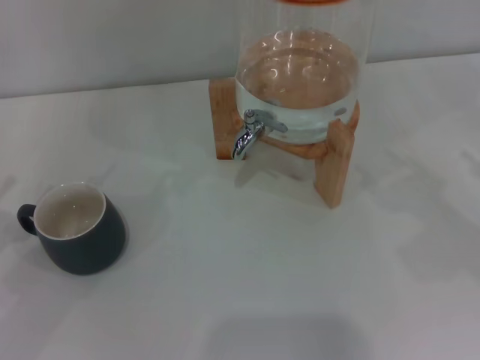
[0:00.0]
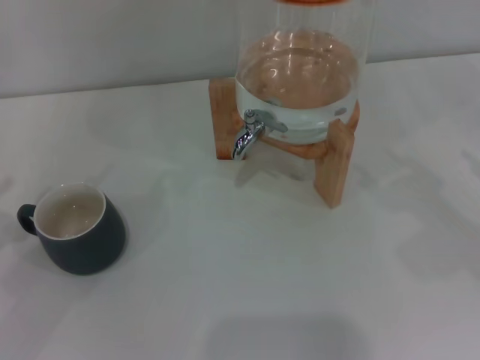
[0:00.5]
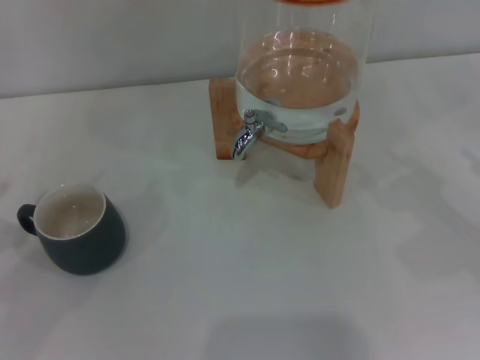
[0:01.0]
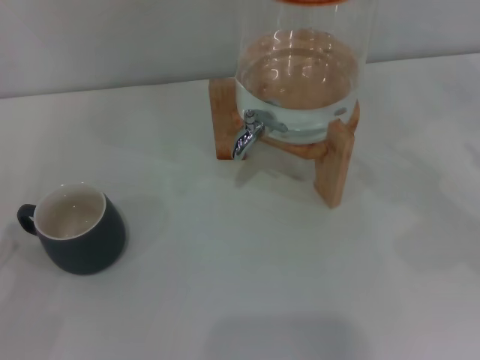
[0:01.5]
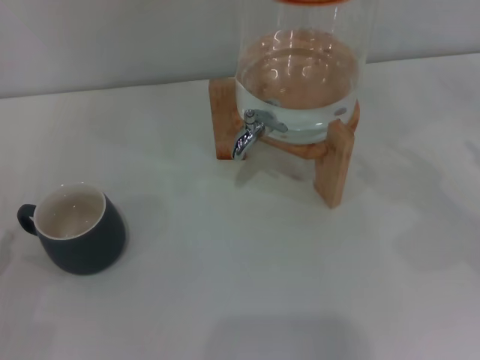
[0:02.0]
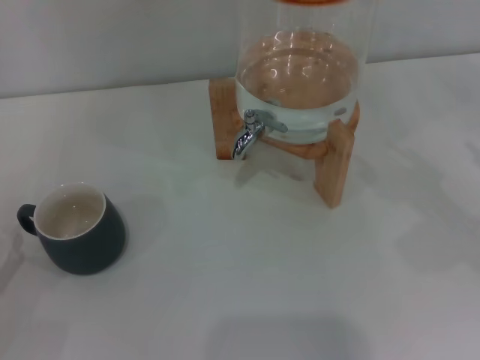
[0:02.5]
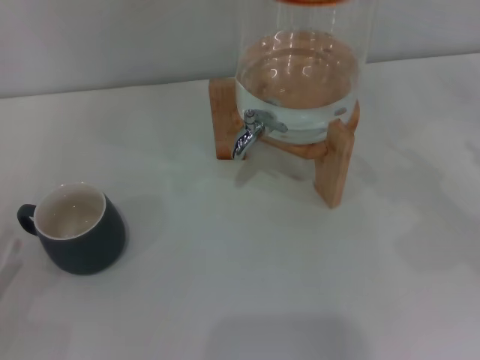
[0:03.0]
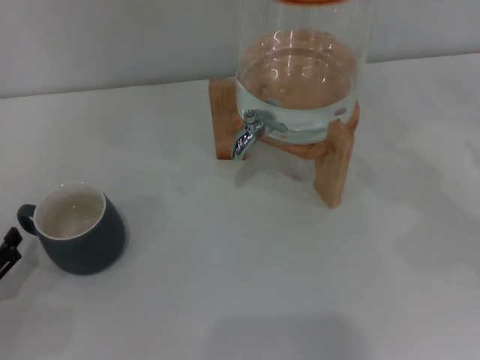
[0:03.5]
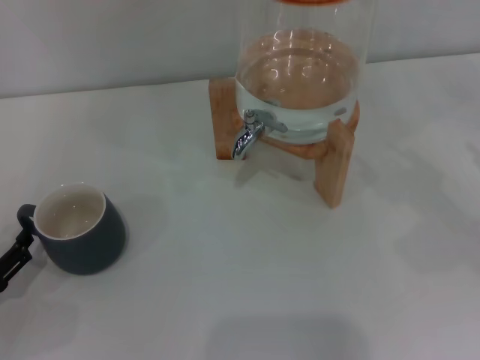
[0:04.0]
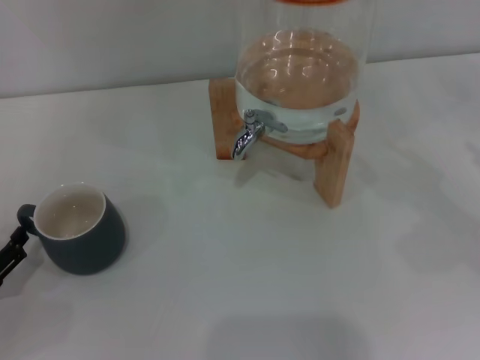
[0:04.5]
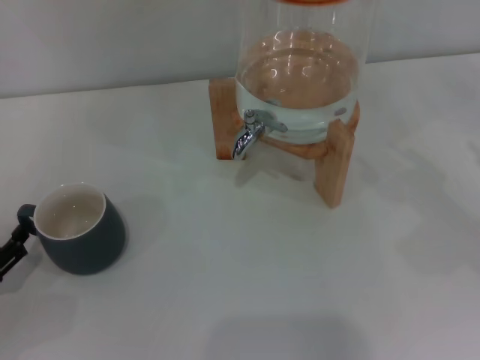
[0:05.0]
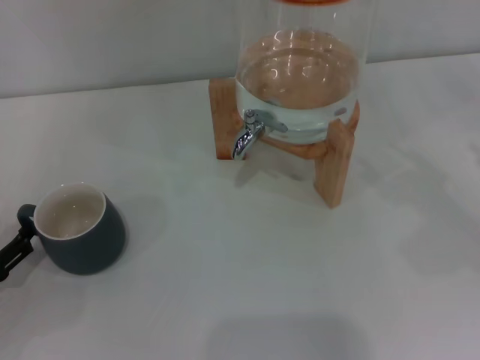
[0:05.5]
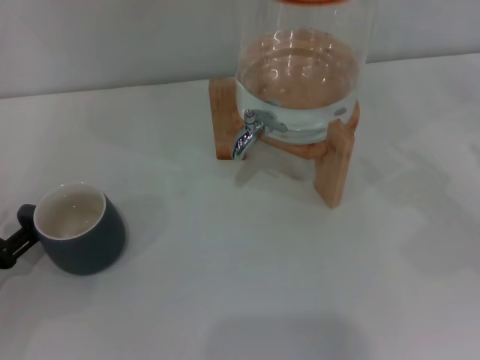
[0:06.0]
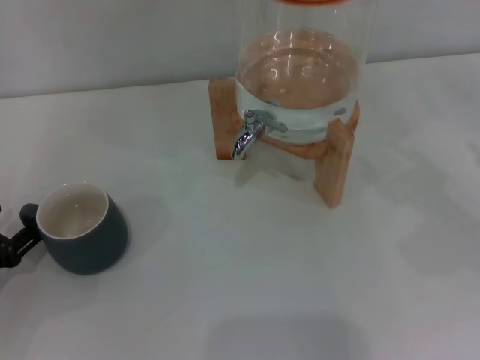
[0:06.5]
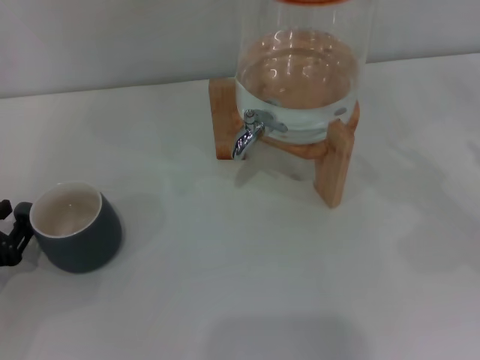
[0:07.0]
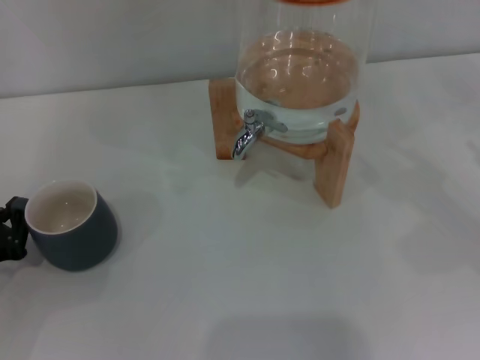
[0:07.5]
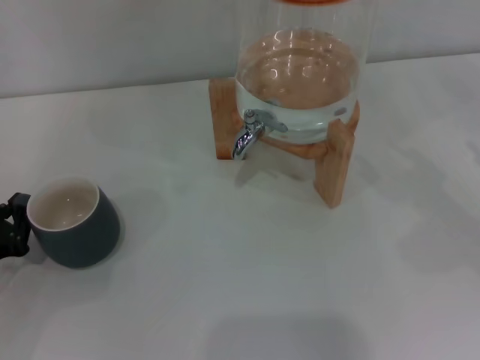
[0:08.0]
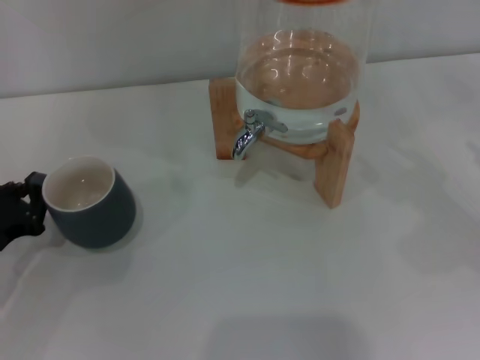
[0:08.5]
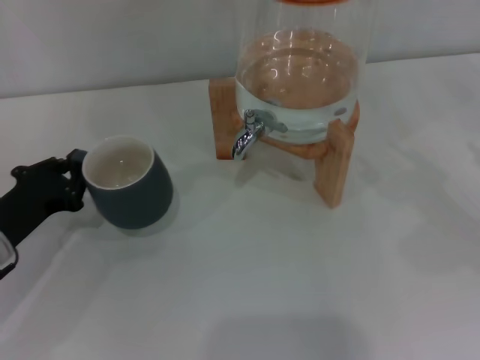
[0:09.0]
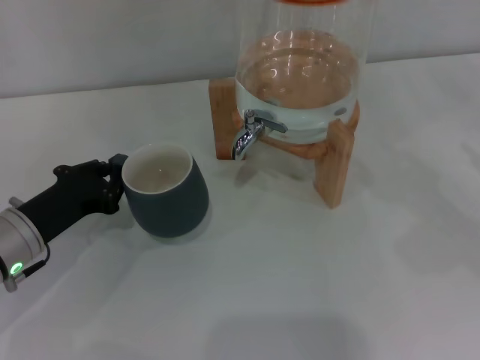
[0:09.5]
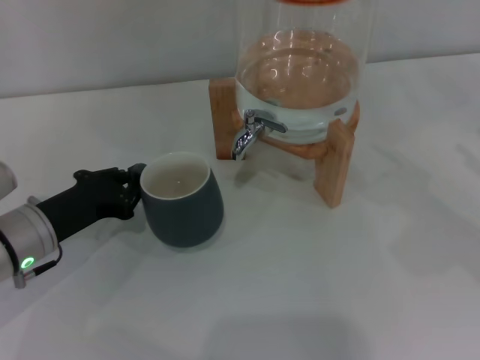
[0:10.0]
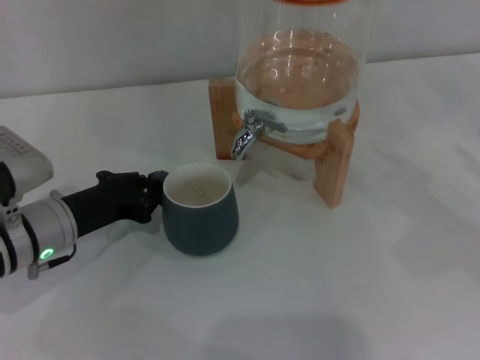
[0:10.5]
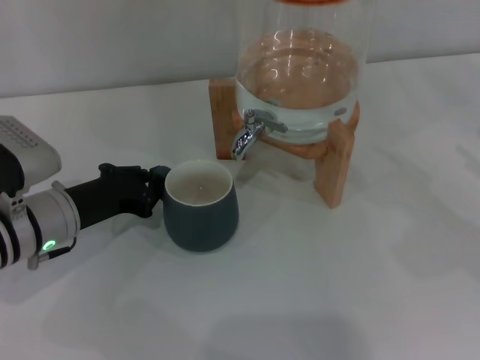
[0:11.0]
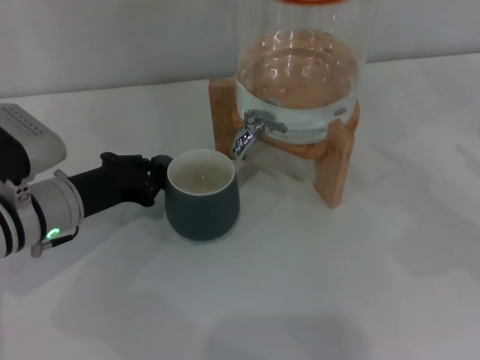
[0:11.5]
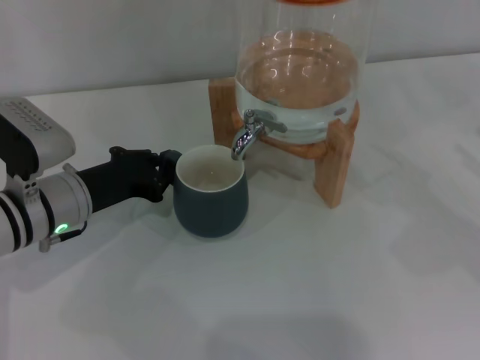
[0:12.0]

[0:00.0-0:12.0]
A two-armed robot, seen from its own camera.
Task of the whole recording: the left gripper pick up the black cup and place it horizontally under the faucet, the right gripper turn on the faucet to fill the cup, and then turn off the faucet.
0:02.0 to 0:04.0: The grippers move only a little.
0:06.0 to 0:08.0: The left gripper closes up.
0:08.0 to 0:10.0: The left gripper heads to the right and forward, covering approximately 10 cm.
0:10.0 to 0:12.0: The left gripper shifts by roughly 5 cm.

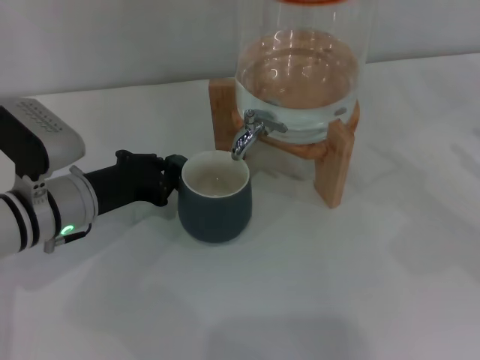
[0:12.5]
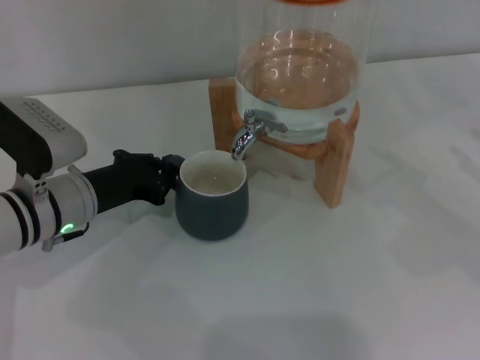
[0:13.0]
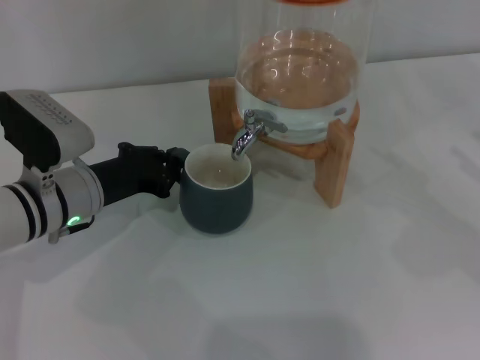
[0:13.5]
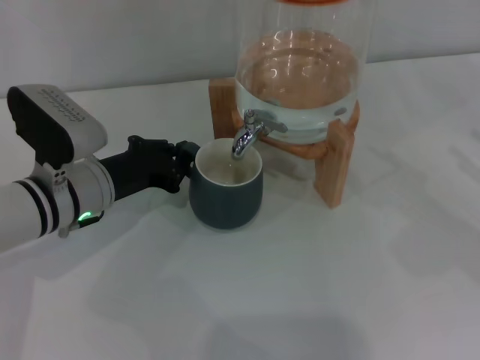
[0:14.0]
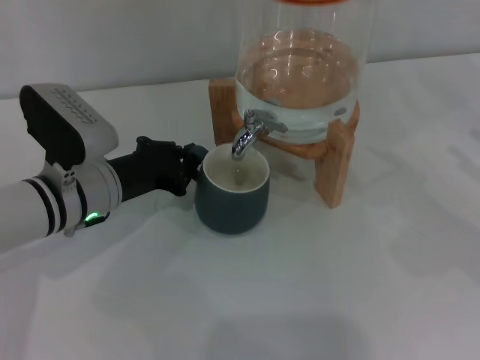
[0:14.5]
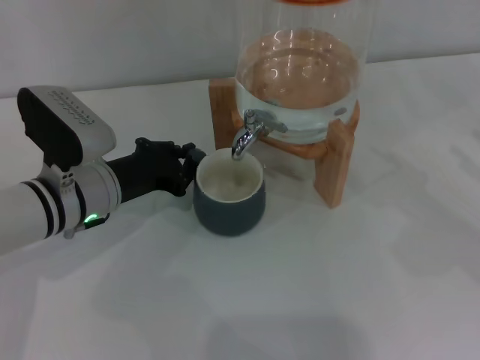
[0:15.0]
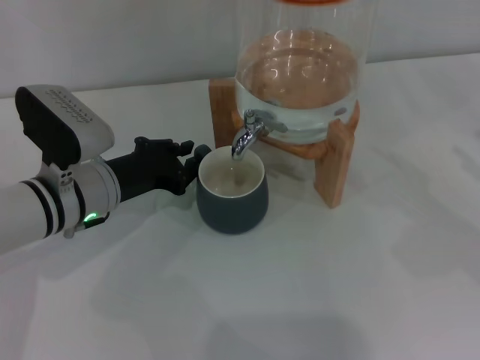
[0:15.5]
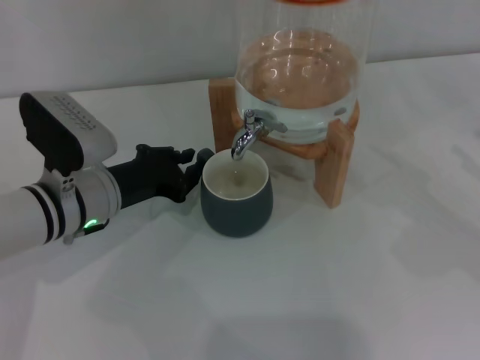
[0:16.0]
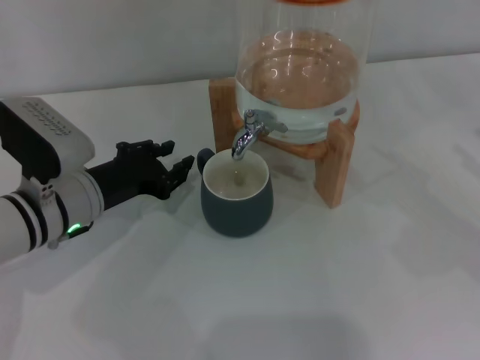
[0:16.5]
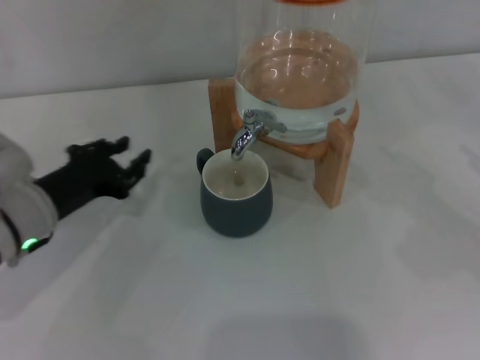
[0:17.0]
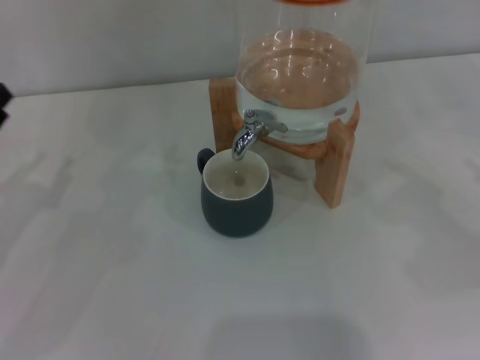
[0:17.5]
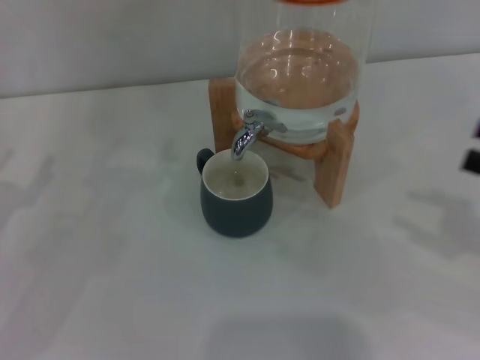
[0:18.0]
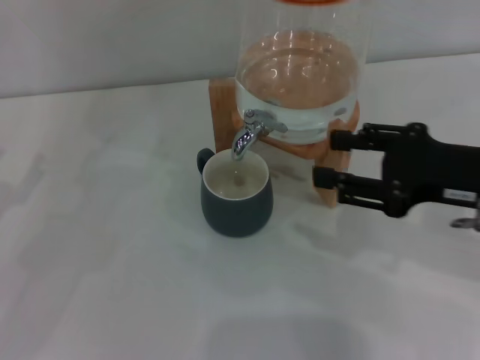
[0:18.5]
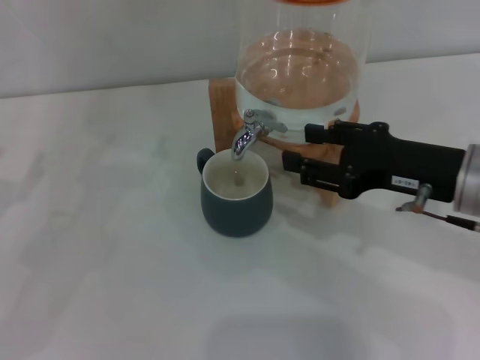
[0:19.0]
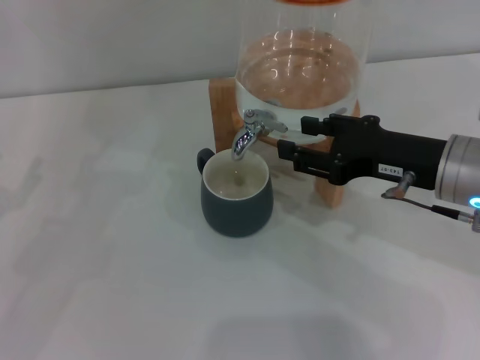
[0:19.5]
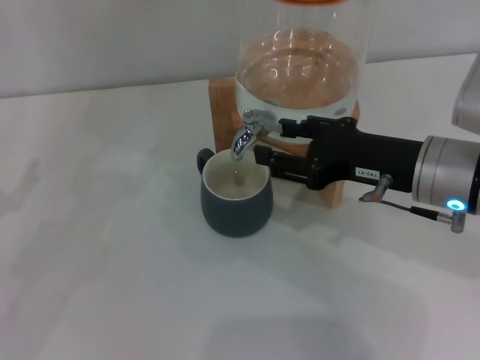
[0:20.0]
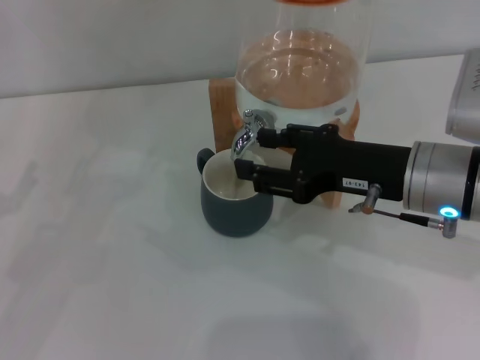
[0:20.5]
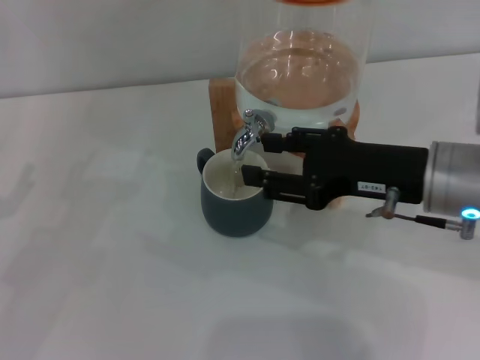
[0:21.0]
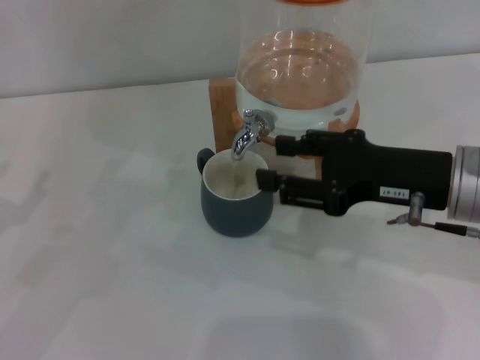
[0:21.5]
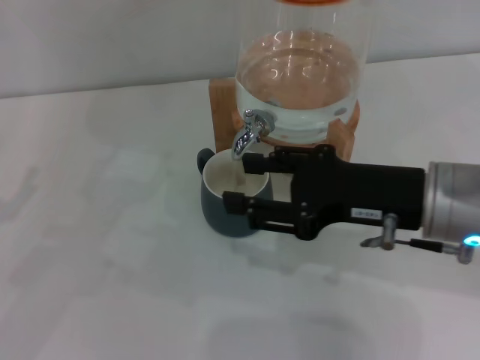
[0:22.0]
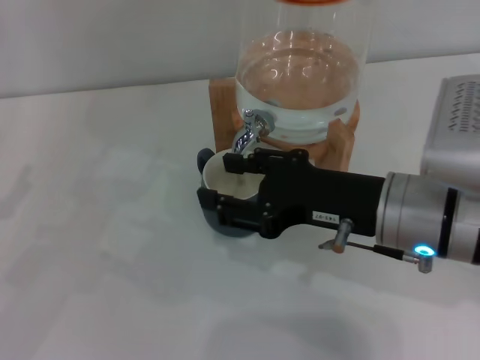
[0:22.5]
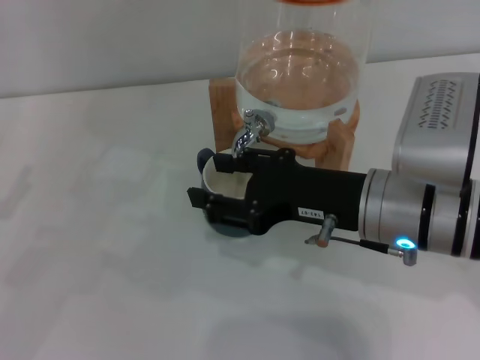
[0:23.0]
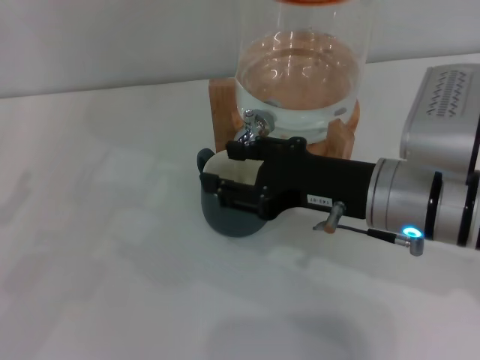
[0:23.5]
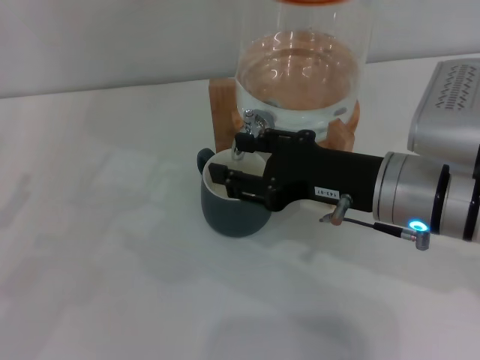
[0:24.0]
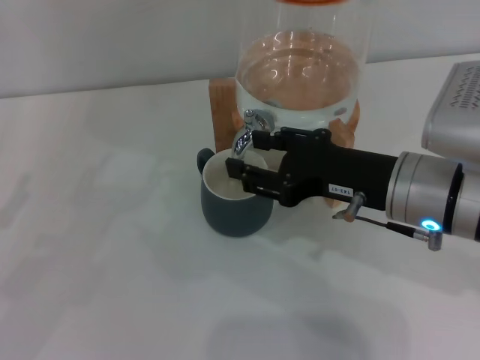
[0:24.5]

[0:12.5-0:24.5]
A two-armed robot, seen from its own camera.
Task of the whole recording: the left gripper pick up the black cup and place it horizontally under the faucet, the right gripper turn on the faucet to fill the cup, and then turn off the faucet.
Step, 0:12.5 to 0:16.5: Move the cup beneath the water dispenser nozzle with the left gripper.
Step, 0:17.0 to 0:23.0: Open the dispenser valve and fill the cup with water with the right gripper.
0:12.5 to 0:16.5: The grippers make only small movements.
0:16.5 to 0:18.5: Both grippers travel together to the left, some 15 cm. The left gripper opens up.
0:18.5 to 0:20.5: The right gripper goes about 5 cm to the left.
0:20.5 to 0:24.5: The grippers make only small movements.

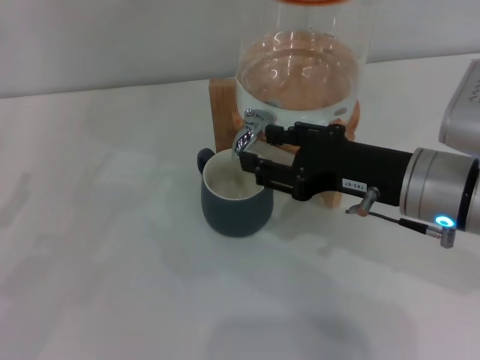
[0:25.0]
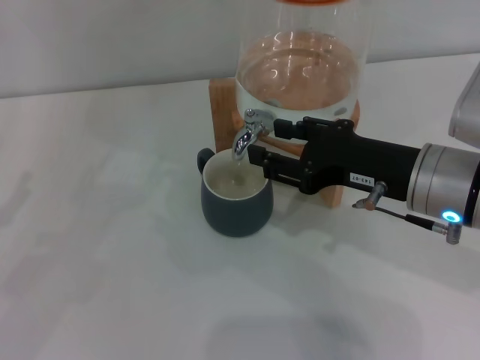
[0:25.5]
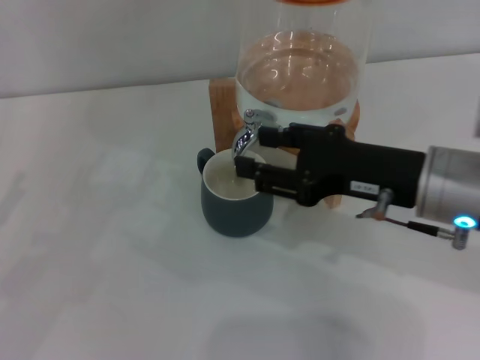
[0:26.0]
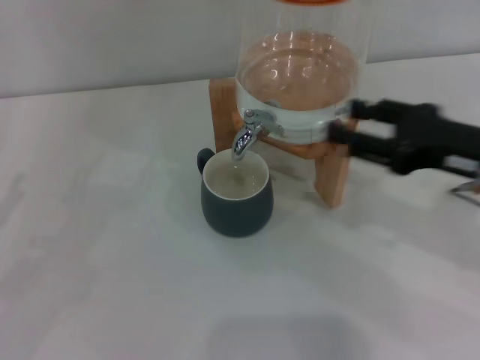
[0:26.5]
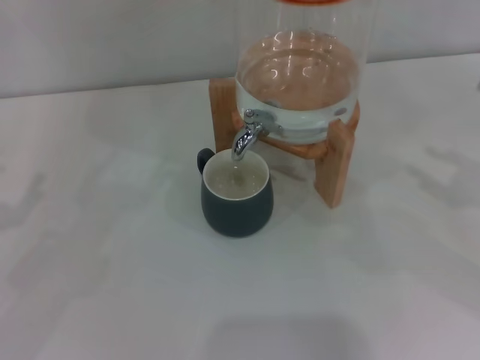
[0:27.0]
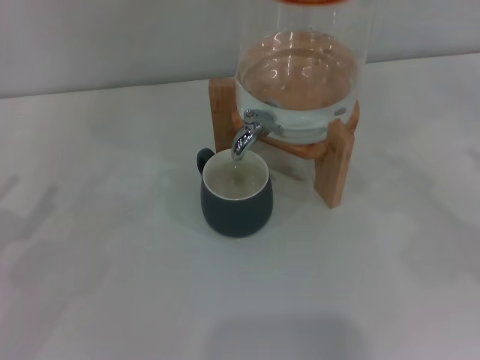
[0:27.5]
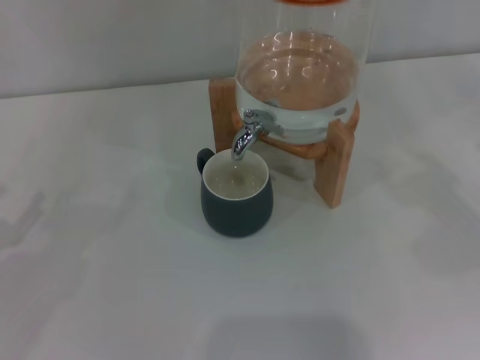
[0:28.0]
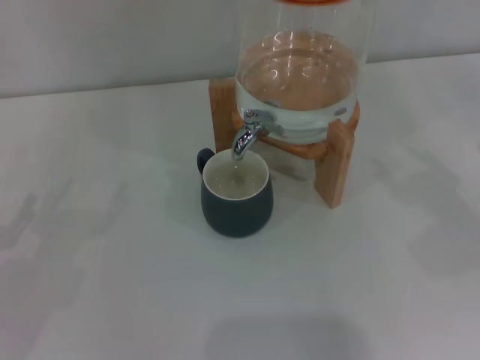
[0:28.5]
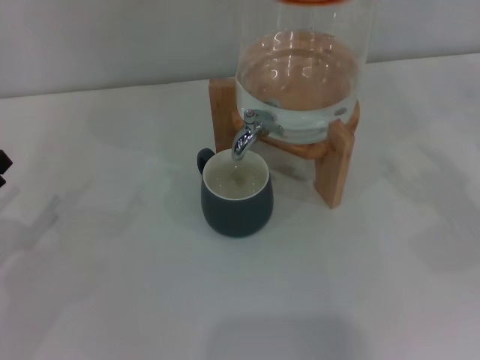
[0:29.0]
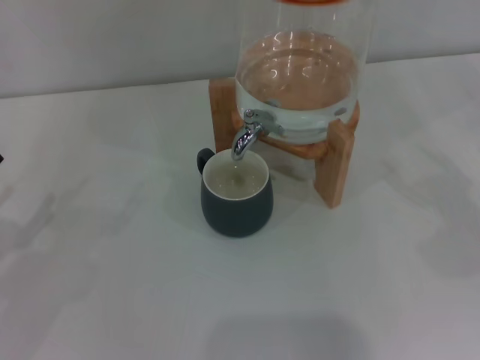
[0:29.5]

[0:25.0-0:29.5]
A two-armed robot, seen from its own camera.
Task of the whole recording: the left gripper pick up the black cup and place it horizontally under the faucet, the right gripper turn on the faucet to fill the cup, and then turn off the faucet.
0:25.0 to 0:27.0: The right gripper moves to the right, some 20 cm.
